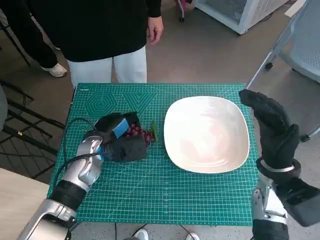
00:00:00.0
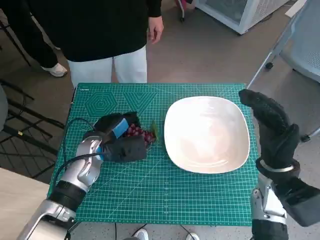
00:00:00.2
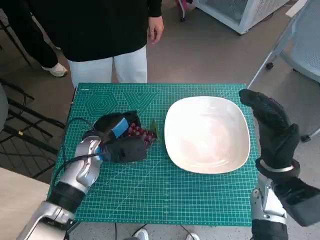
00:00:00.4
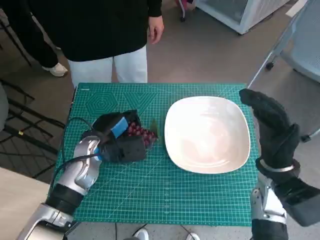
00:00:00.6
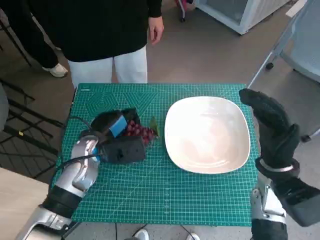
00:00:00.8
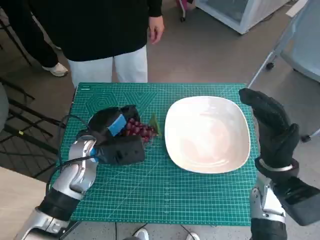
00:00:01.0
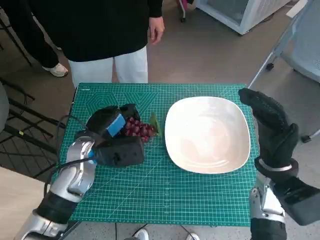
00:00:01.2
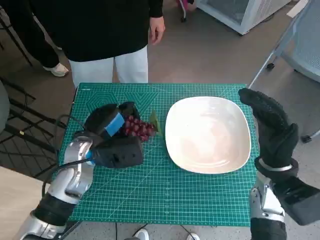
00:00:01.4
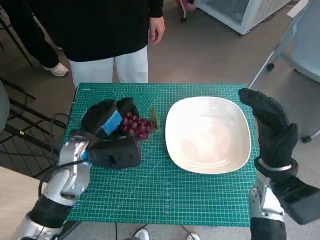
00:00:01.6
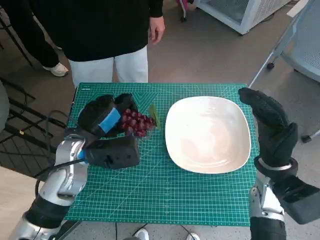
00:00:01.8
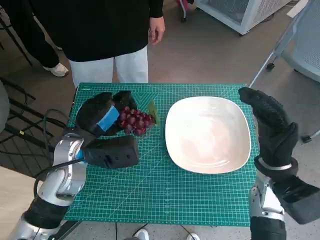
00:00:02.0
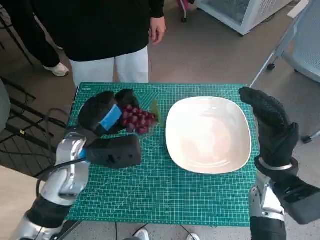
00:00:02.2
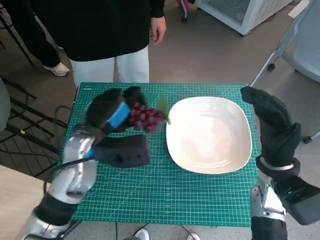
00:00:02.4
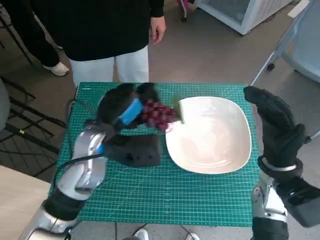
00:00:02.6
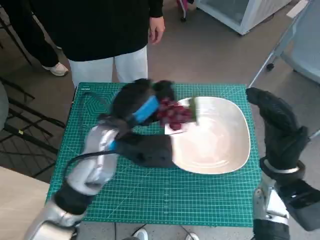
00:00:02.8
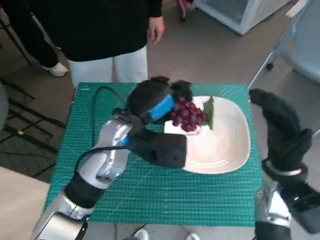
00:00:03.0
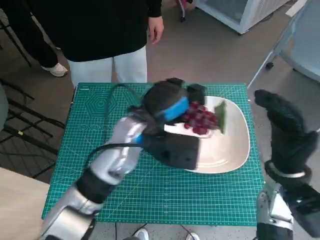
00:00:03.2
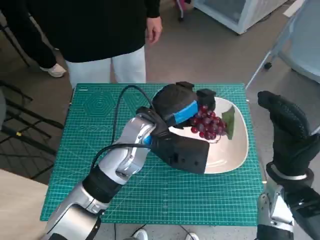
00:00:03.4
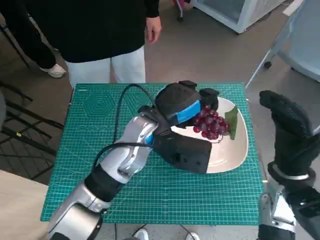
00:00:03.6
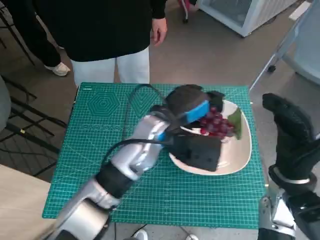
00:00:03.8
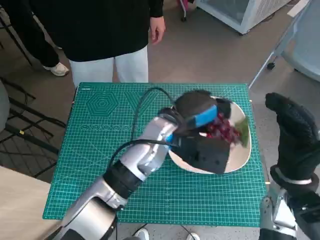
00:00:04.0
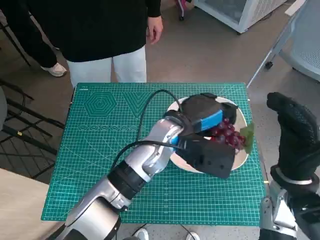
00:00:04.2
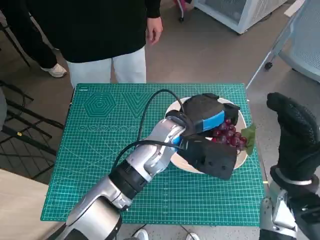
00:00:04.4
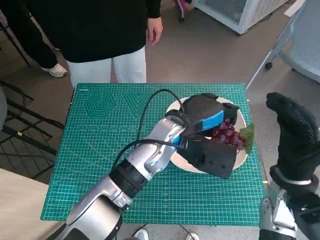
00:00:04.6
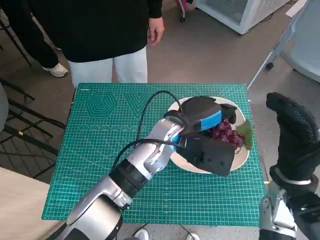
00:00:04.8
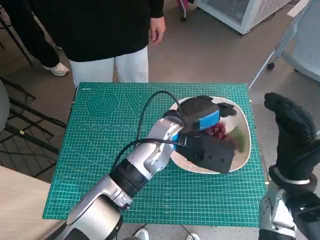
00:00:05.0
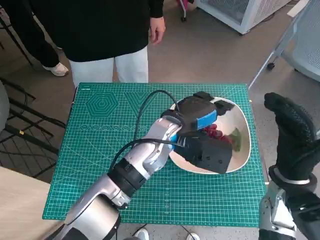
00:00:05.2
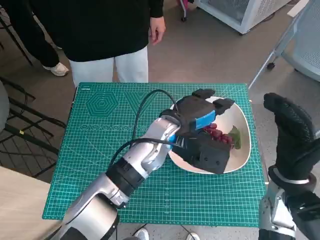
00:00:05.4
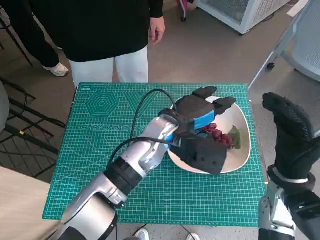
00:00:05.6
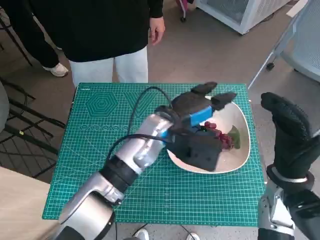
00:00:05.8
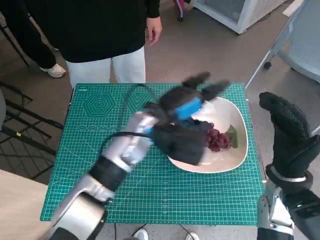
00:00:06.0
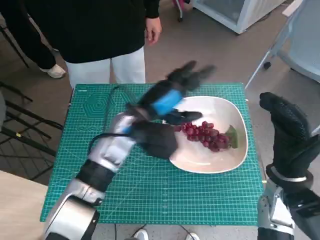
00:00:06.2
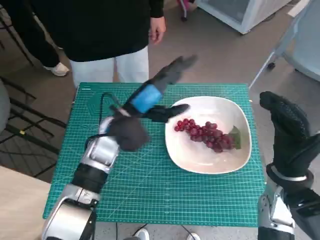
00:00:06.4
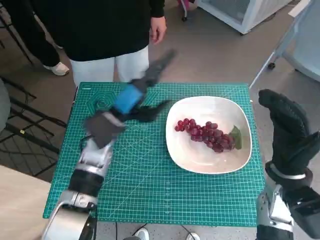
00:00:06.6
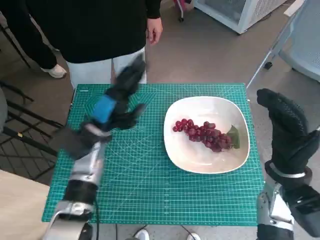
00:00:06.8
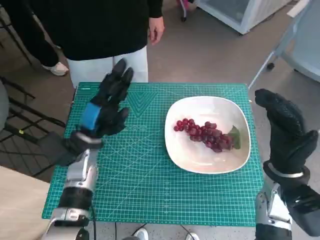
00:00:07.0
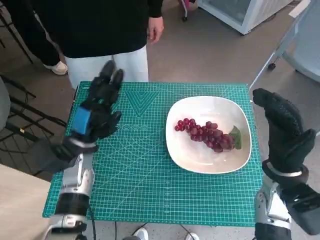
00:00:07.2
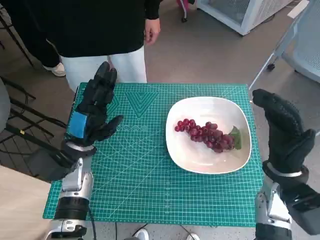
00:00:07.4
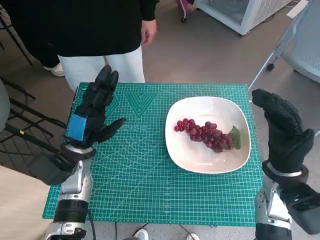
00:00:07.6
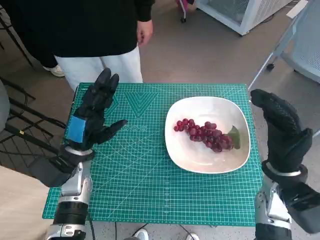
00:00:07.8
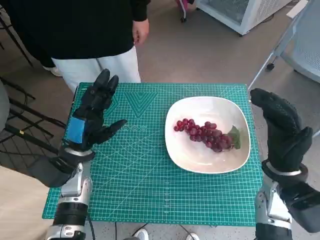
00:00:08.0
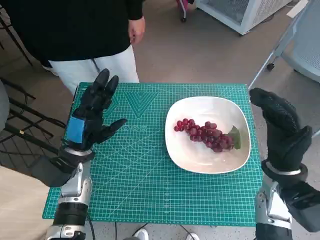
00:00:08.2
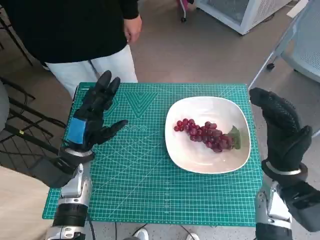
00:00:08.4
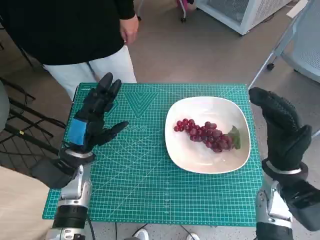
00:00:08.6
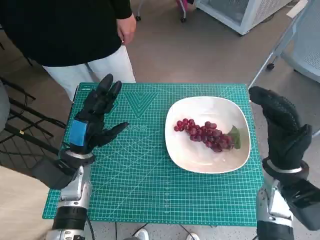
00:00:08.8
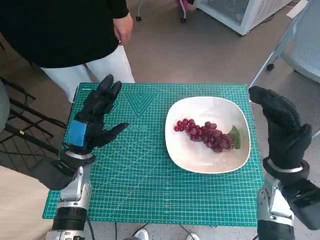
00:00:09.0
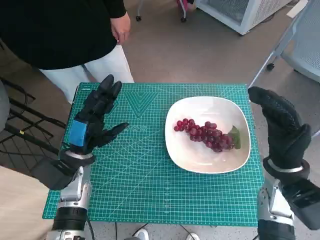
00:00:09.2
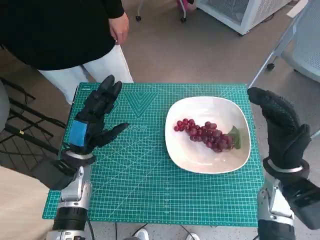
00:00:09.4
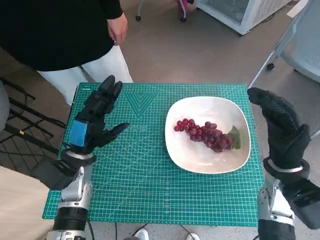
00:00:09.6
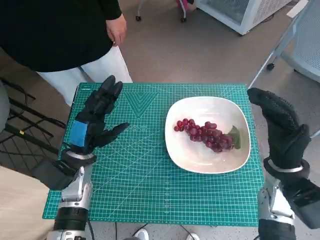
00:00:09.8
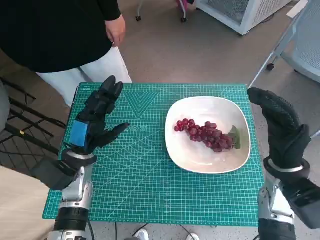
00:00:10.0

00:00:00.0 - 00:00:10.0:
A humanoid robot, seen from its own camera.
Task of the whole recording: Pick up the grapes and put them on the plate.
Step, 00:00:00.0 - 00:00:05.4: Place the grapes in the plate with left hand.
00:00:00.0 - 00:00:01.4: The left hand changes place by about 5 cm.
00:00:01.4 - 00:00:02.8: The left hand goes some 10 cm to the right and upward.
00:00:02.8 - 00:00:04.2: The left hand moves to the right, roughly 10 cm.
00:00:04.2 - 00:00:05.8: There are only small adjustments of the hands.
00:00:05.8 - 00:00:07.2: The left hand travels to the left by roughly 20 cm.
00:00:07.2 - 00:00:08.6: There are only small adjustments of the hands.
00:00:08.6 - 00:00:10.0: The two hands keep their place.

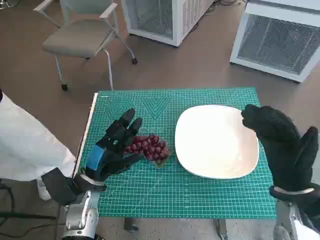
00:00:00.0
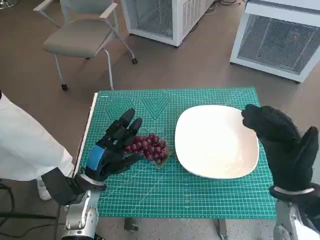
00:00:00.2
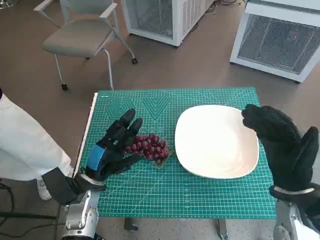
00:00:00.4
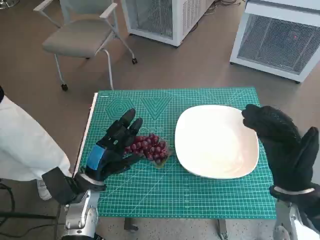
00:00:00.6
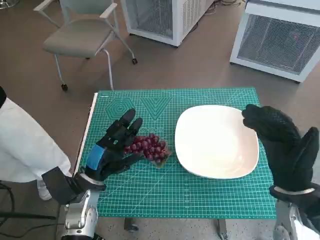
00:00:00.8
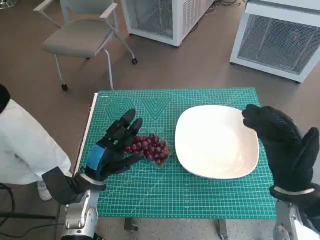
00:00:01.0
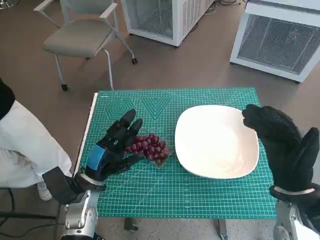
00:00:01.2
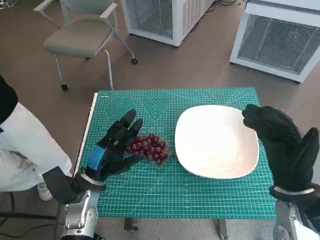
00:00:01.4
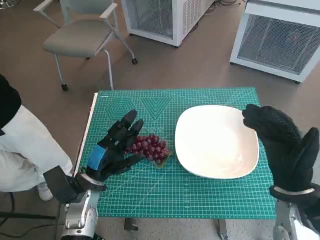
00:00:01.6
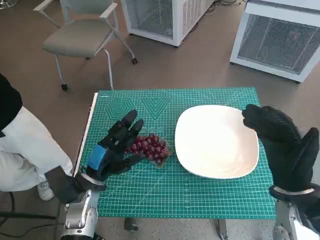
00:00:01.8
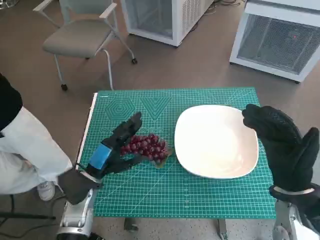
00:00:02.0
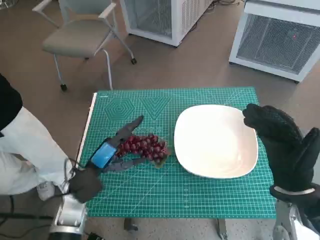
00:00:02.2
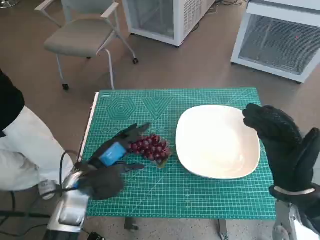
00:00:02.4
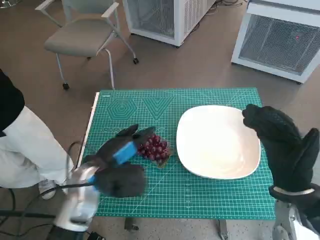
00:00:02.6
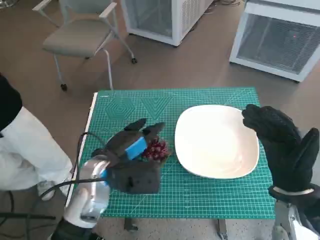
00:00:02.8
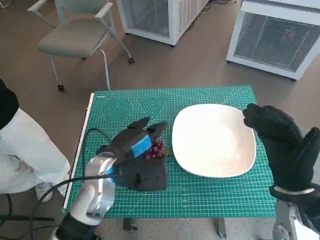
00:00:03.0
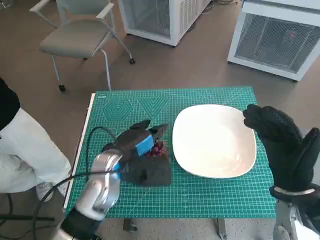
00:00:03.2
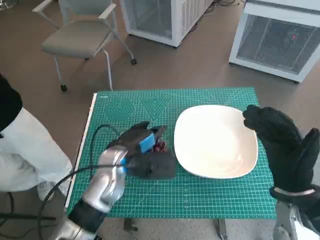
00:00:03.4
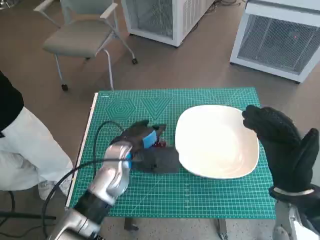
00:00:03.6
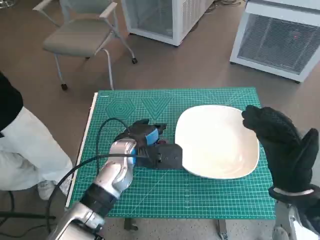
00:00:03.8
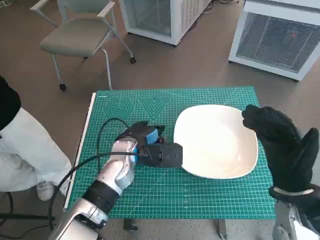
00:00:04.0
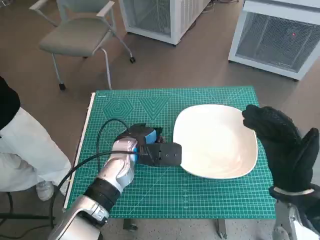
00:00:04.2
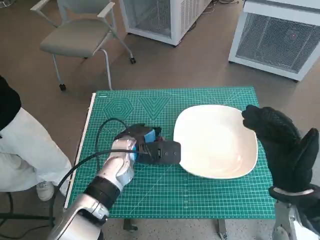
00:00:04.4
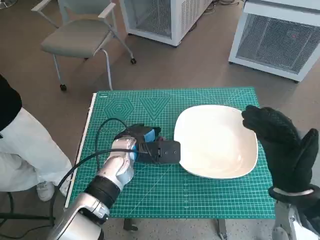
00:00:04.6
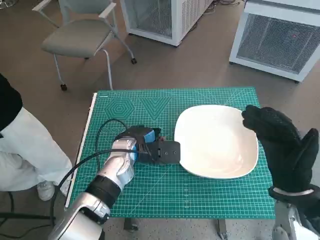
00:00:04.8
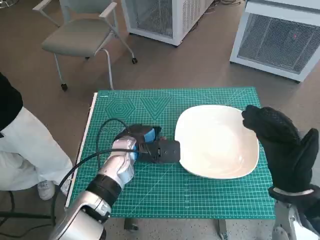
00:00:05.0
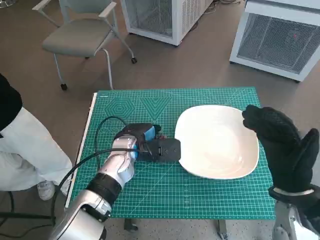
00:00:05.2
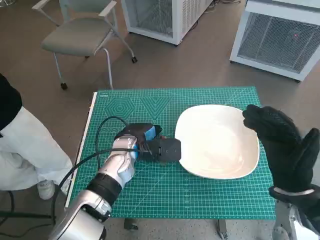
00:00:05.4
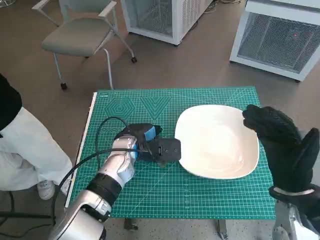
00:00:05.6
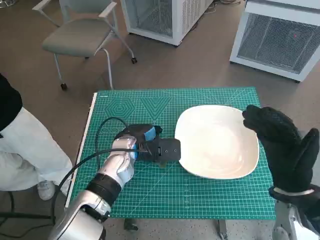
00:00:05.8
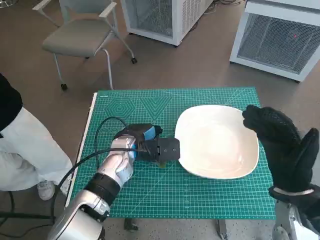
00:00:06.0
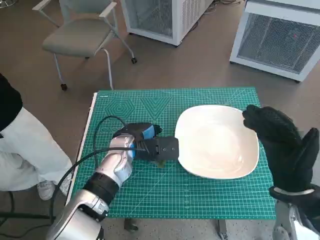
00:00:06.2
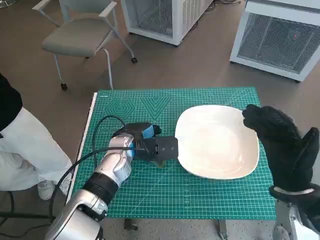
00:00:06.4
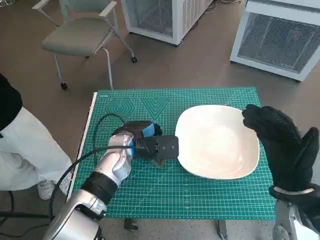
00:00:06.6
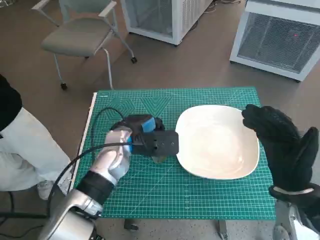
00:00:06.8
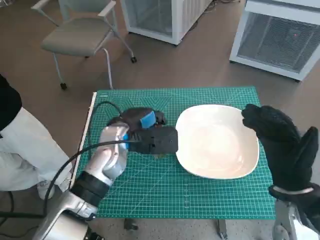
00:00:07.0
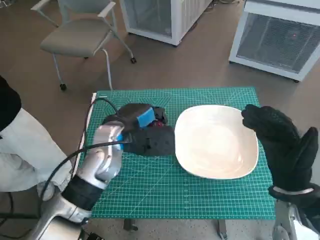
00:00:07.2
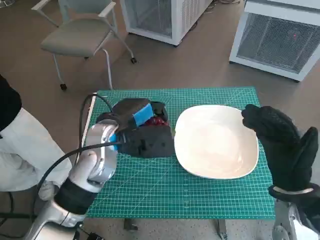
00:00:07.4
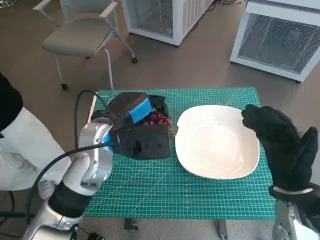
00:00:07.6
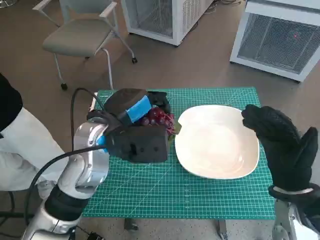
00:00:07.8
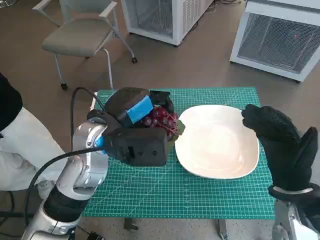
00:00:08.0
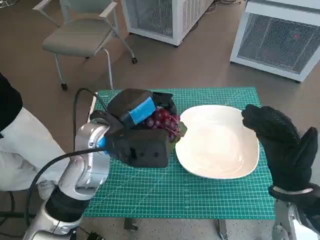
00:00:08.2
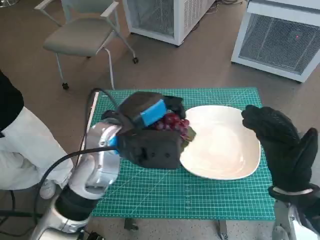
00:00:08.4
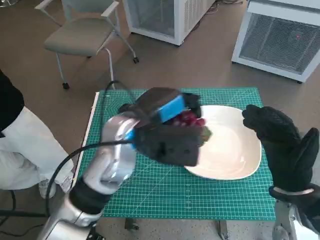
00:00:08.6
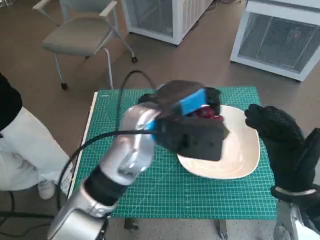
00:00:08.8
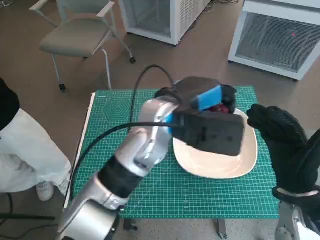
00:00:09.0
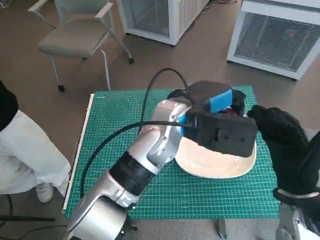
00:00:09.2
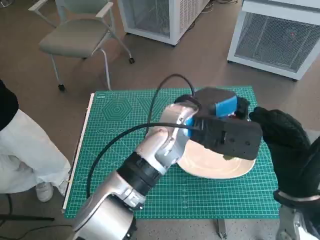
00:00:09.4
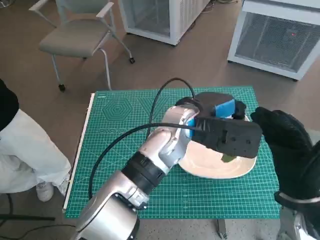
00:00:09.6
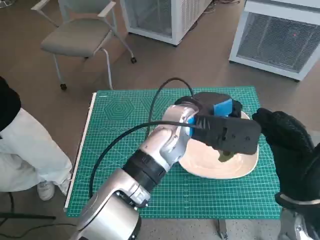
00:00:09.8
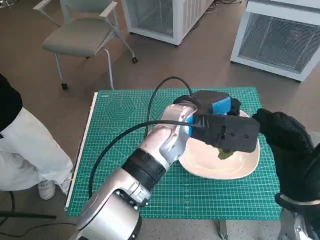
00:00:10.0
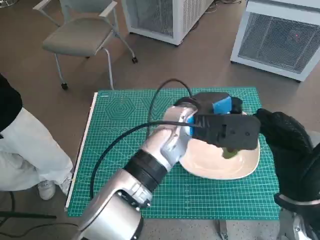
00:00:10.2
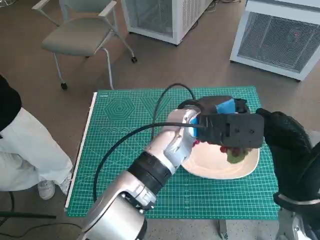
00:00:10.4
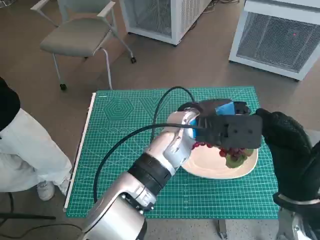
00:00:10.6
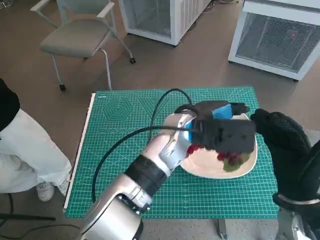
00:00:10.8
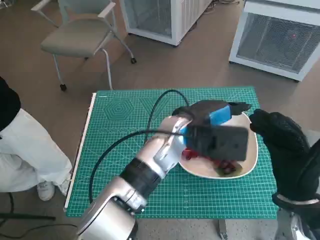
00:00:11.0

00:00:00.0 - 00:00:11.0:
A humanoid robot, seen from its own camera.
Task of the whole recording: Pick up the grapes and put them on the plate.
Step, 00:00:00.0 - 00:00:05.4: Grasp the grapes with left hand.
Step, 00:00:05.6 - 00:00:10.8: Place the grapes in the plate with left hand.
00:00:01.6 - 00:00:03.2: The left hand moves to the right and upward, some 10 cm.
00:00:03.2 - 00:00:04.8: The left hand goes about 5 cm forward.
00:00:04.8 - 00:00:06.2: Neither hand changes place.
00:00:06.2 - 00:00:07.8: The left hand is displaced upward by some 10 cm.
00:00:07.8 - 00:00:09.4: The left hand is displaced to the right by some 15 cm.
00:00:09.4 - 00:00:11.0: The hands move only a little.

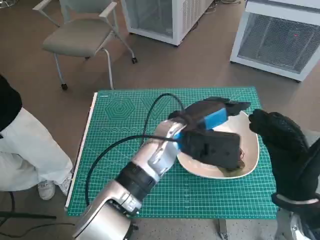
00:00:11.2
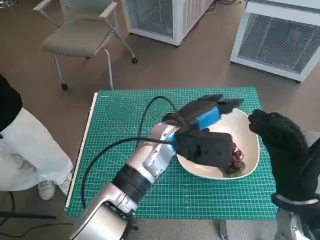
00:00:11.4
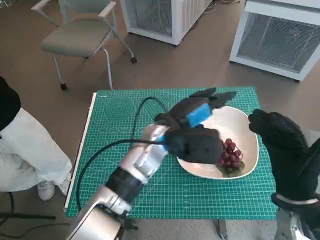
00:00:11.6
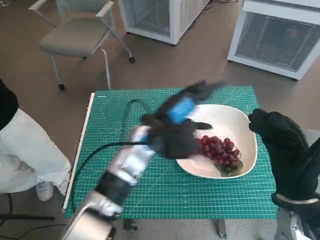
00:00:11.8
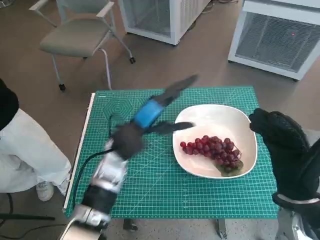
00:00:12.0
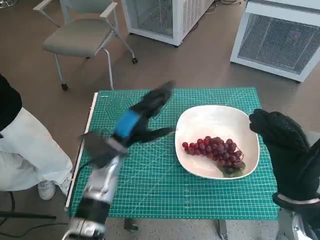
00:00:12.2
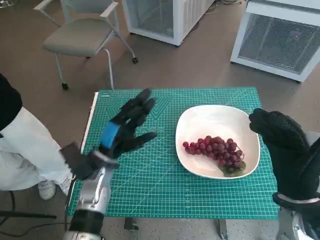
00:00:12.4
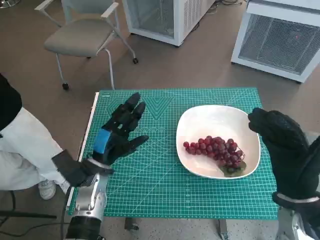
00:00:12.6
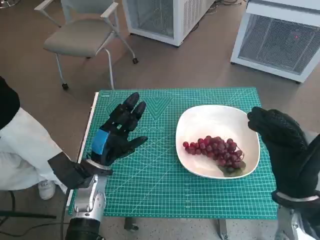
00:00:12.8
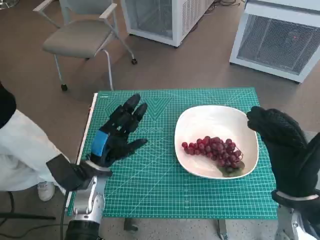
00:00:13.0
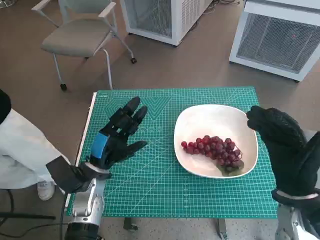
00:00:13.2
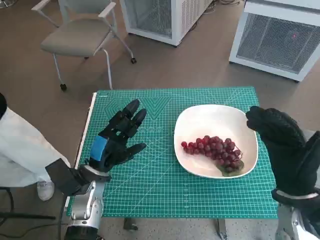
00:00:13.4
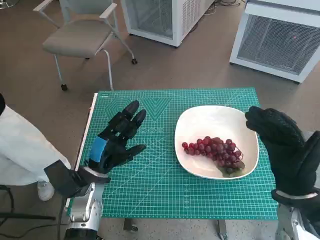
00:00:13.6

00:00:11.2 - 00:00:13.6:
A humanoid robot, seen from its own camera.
Task of the whole recording: Pick up the grapes and put them on the plate.
00:00:11.2 - 00:00:12.4: The left hand shifts roughly 20 cm to the left and downward.
00:00:12.4 - 00:00:13.6: The hands make only small movements.
